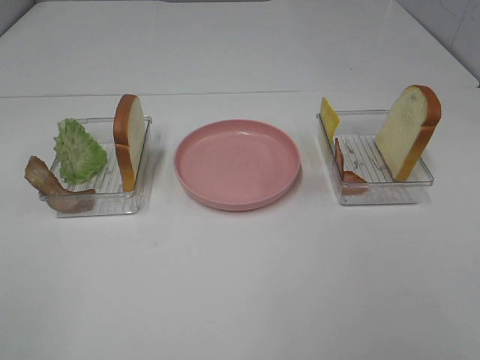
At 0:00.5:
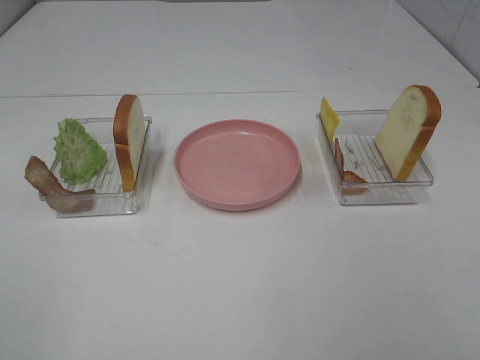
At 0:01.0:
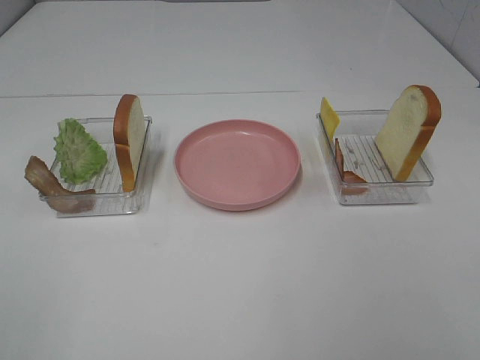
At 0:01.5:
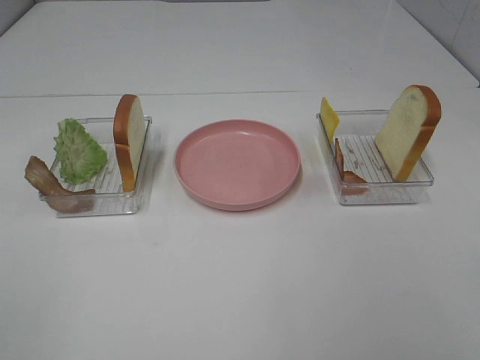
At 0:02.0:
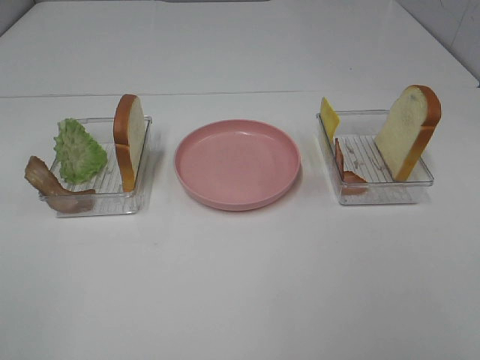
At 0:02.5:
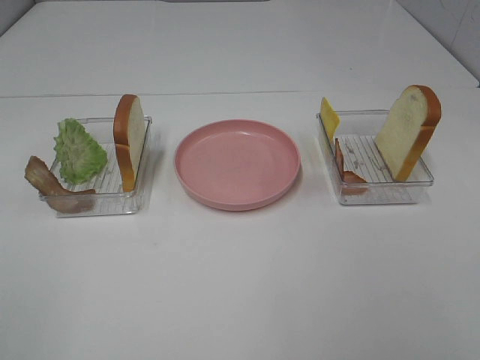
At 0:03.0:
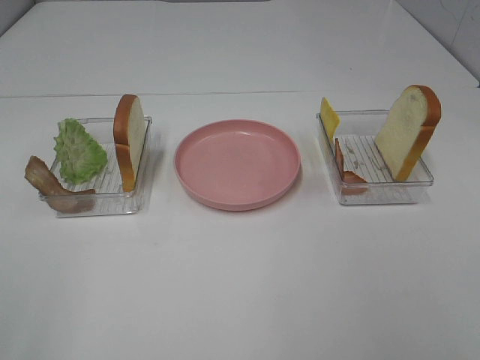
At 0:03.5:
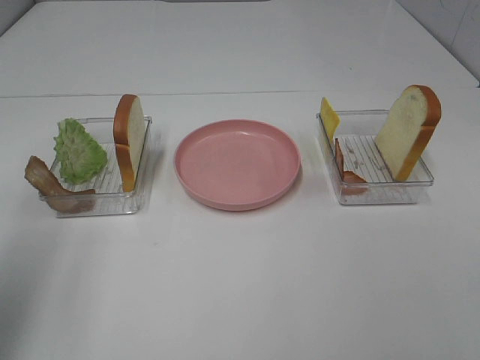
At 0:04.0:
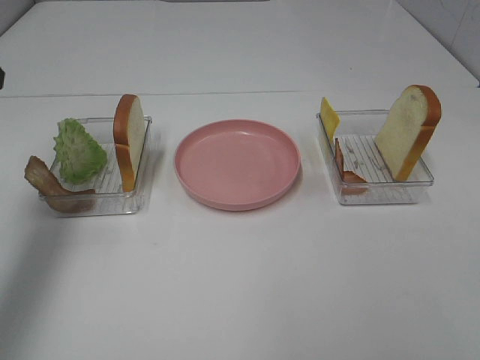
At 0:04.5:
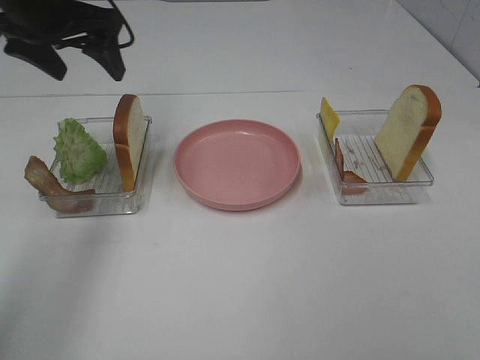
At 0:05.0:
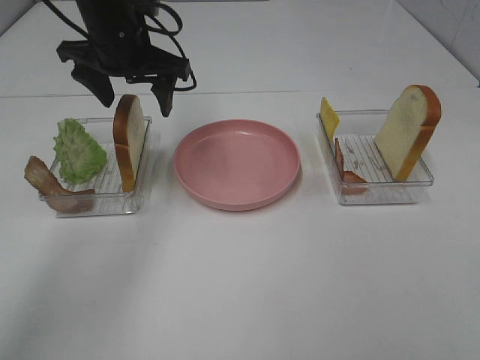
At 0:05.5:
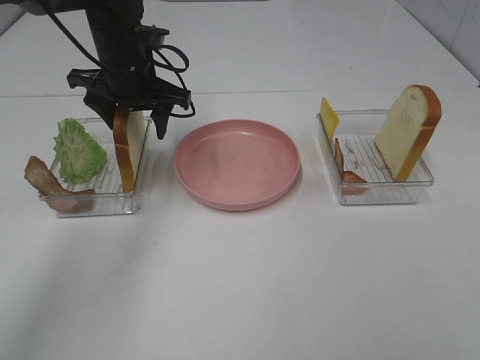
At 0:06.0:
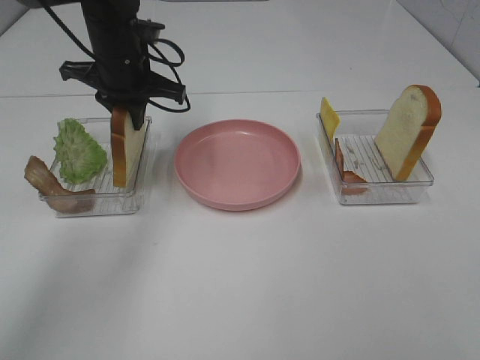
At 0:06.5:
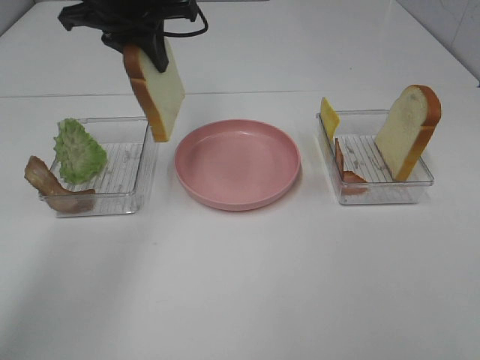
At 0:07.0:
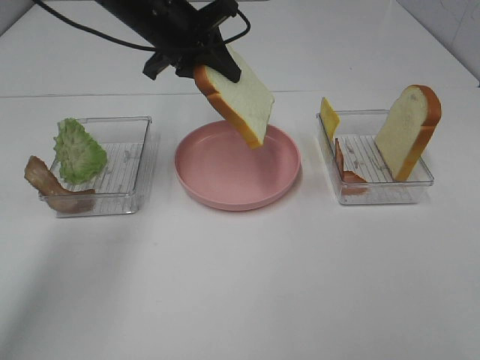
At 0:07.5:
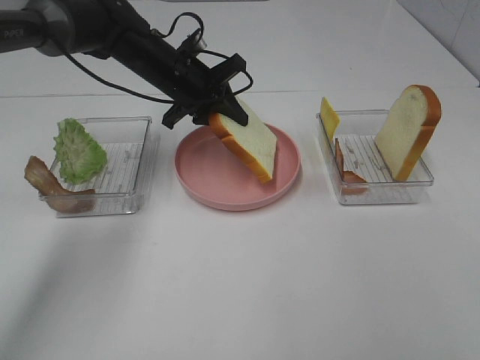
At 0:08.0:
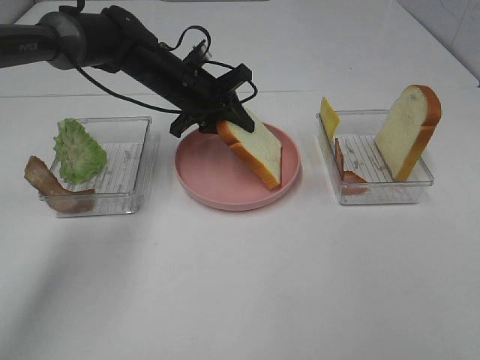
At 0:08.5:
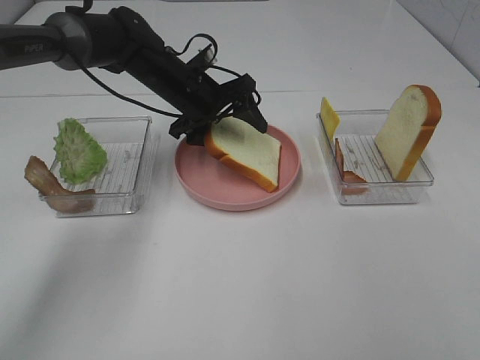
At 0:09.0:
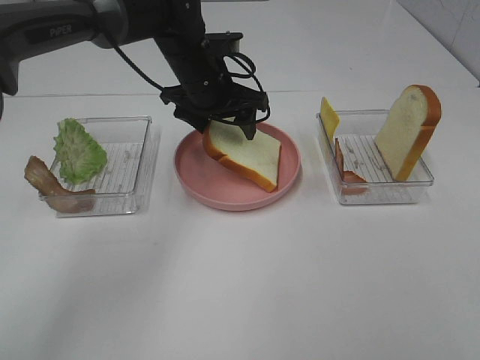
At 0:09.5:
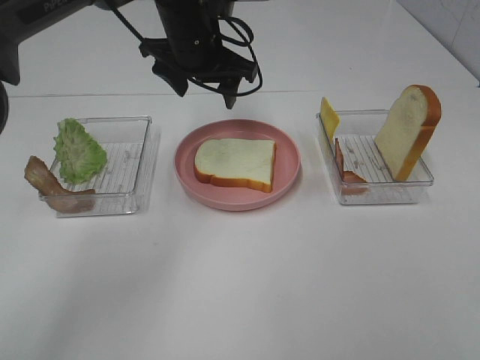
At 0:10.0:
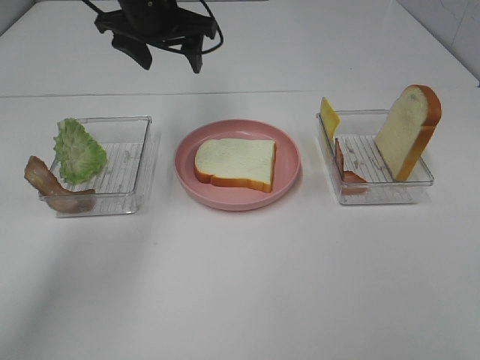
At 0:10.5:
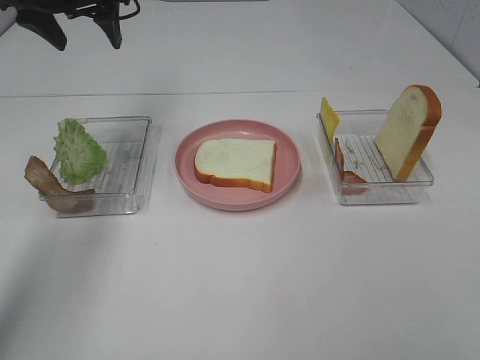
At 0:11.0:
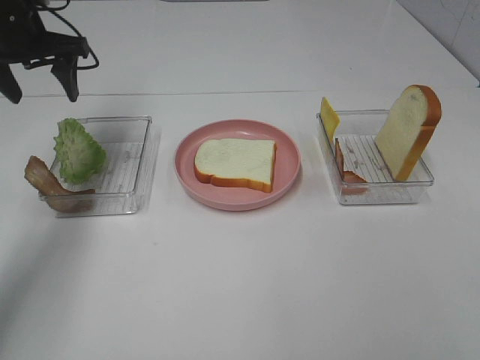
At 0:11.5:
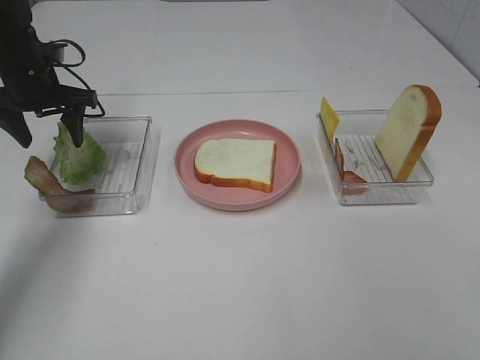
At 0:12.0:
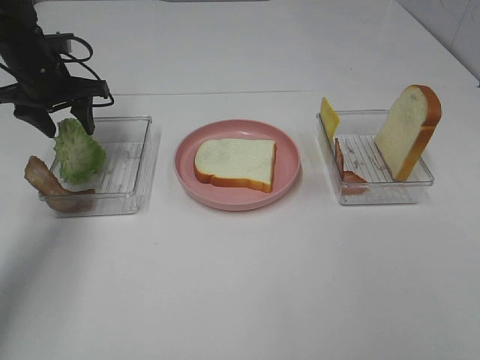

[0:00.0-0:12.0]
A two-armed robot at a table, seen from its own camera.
Task of the whole recording: Make sandwiches.
Step, 0:00.0 to 0:05.5: Left hand:grab the bread slice.
Step, 0:06.0 to 0:09.0: Left hand:place the bread slice on the plate.
0:00.0 to 0:02.0: Neither gripper changes place.
0:02.0 to 0:04.0: The left gripper goes approximately 30 cm forward.
0:04.0 to 0:06.0: The left gripper travels to the right, forward and downward by approximately 25 cm, and closes its fingers.
0:06.0 to 0:08.0: The left gripper goes some 10 cm downward and to the right.
0:08.0 to 0:10.0: The left gripper heads upward, covering some 15 cm, and opens up.
0:10.0 to 0:12.0: The left gripper goes roughly 20 cm to the left and downward.

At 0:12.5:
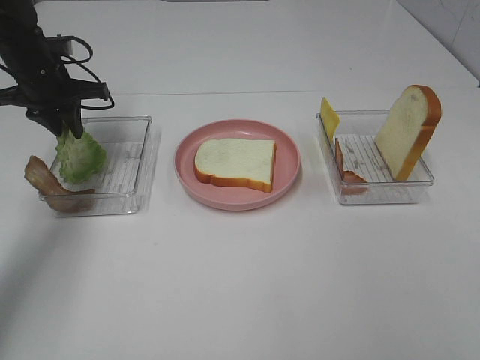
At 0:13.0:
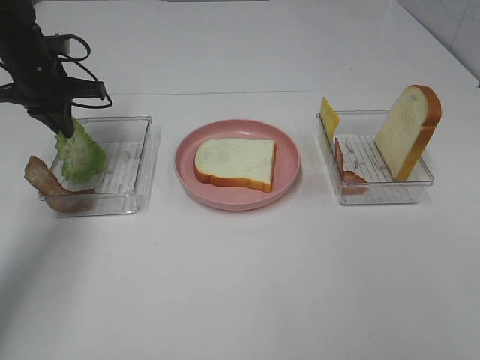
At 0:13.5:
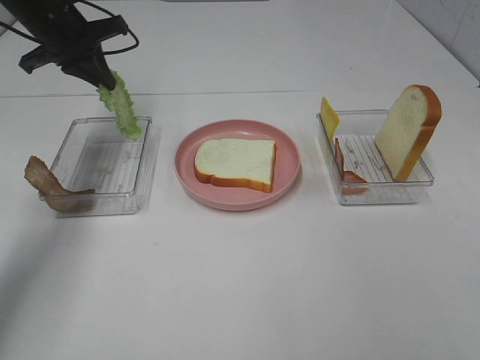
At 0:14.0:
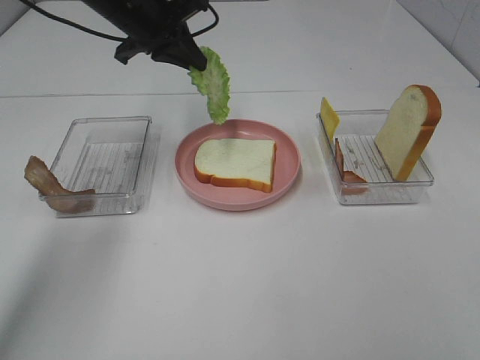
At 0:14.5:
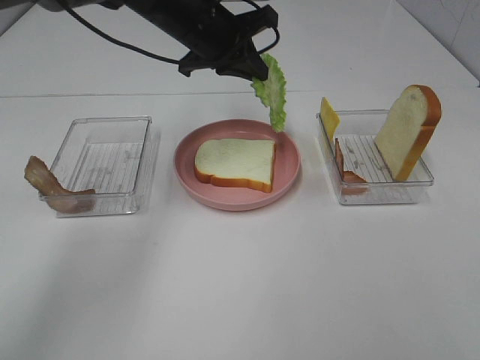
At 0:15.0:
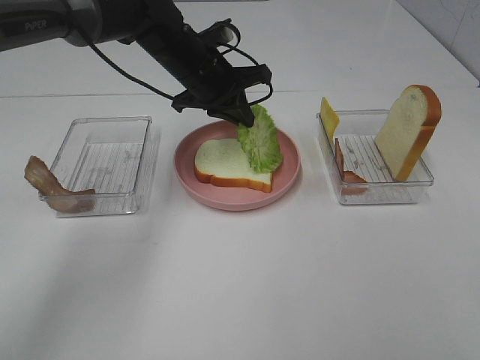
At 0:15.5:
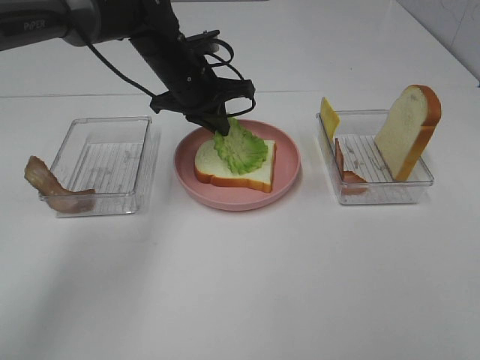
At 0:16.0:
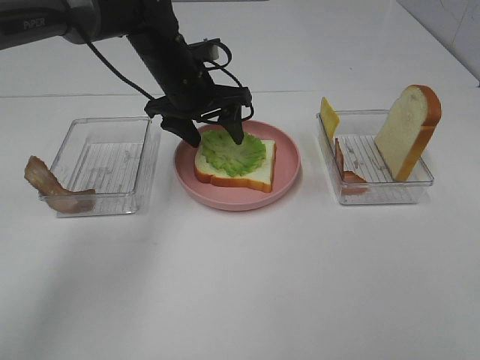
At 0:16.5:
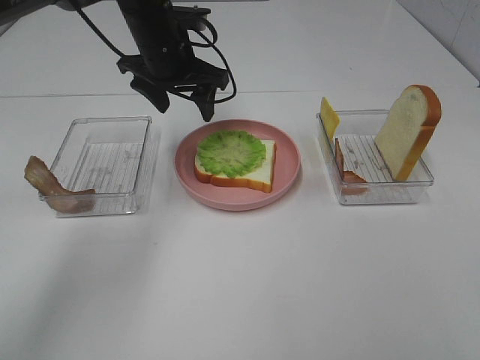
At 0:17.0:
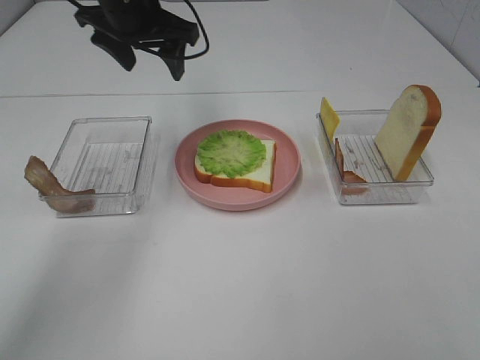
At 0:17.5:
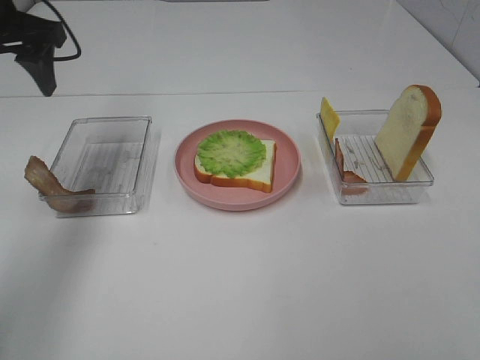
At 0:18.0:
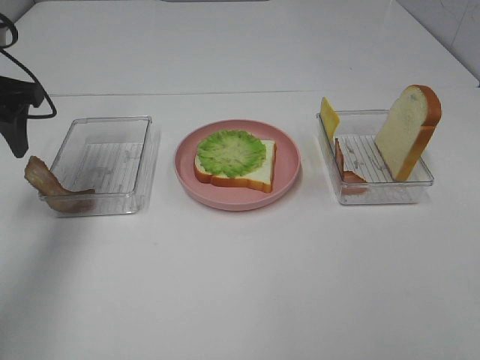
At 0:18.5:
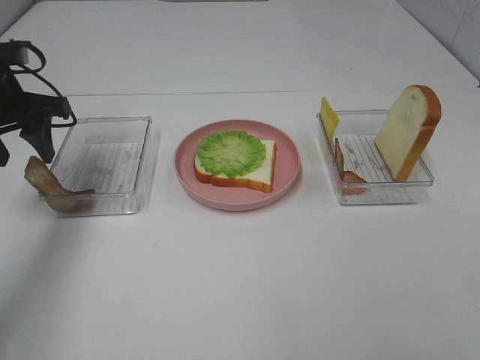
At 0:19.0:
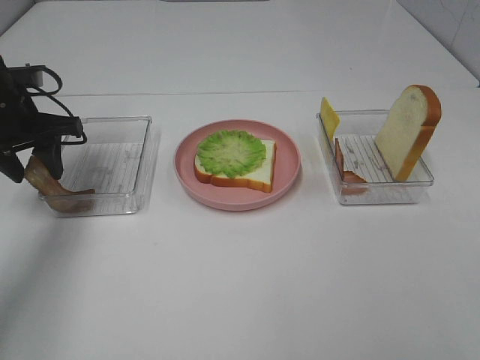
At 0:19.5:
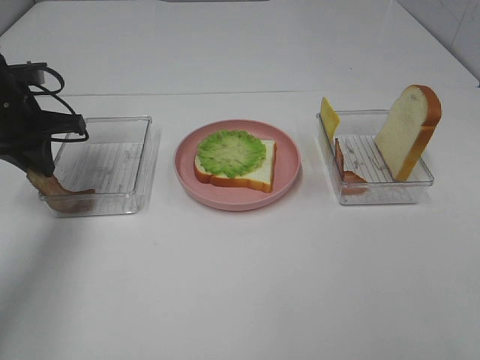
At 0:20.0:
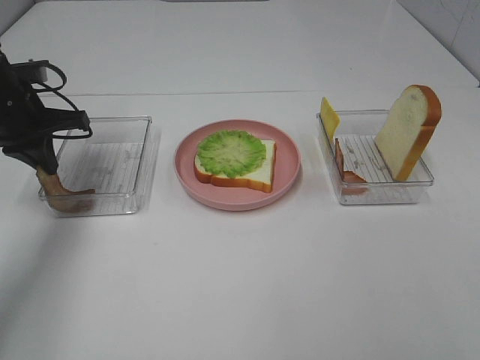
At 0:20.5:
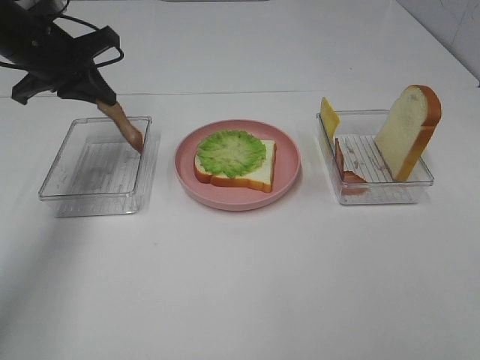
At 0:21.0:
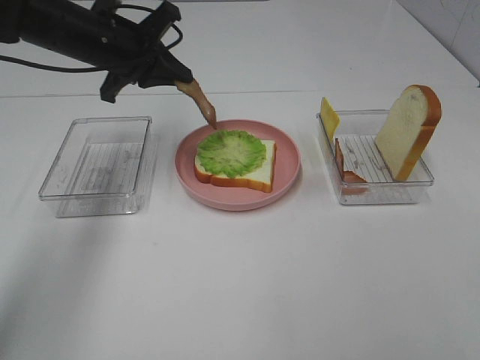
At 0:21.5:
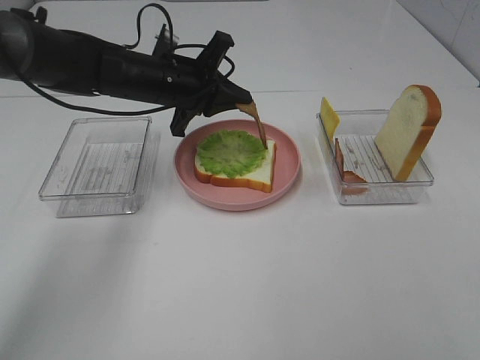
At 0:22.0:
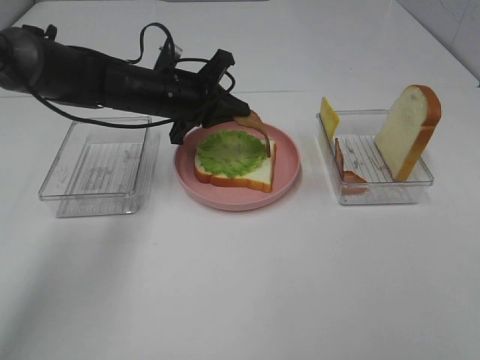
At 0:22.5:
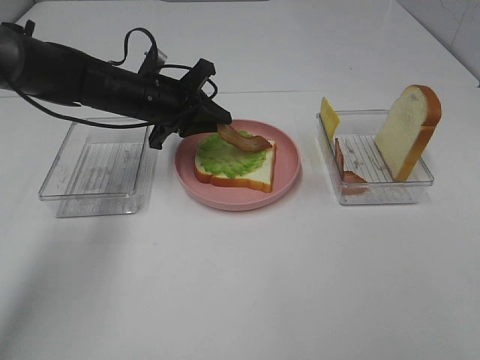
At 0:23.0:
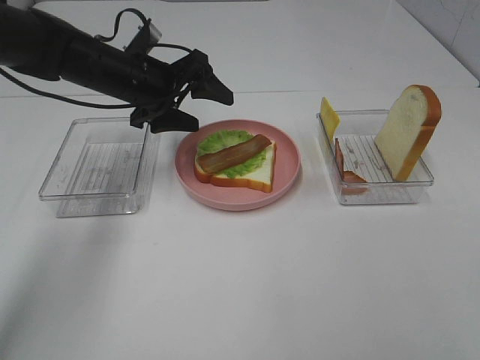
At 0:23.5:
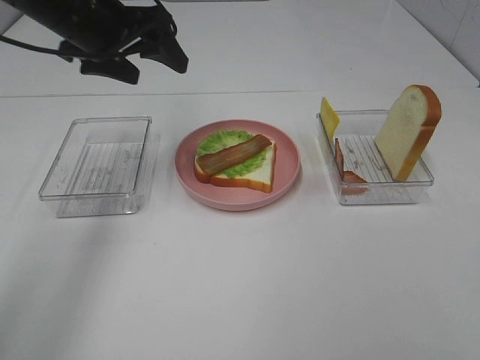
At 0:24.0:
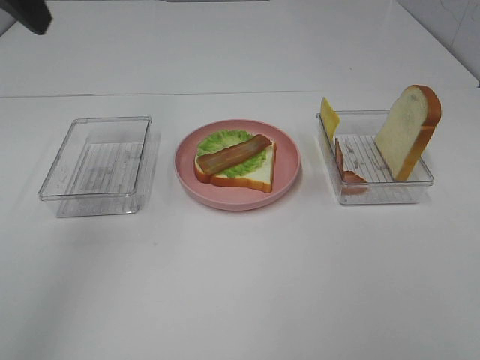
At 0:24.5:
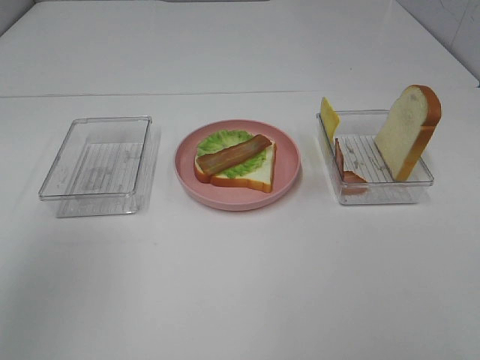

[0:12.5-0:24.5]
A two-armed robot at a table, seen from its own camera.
Task of the whole recording: Make sandwiches.
Step, 0:13.0 to 0:16.0: Left hand:place the lettuce slice on the bread slice.
Step, 0:16.5 to 0:20.0: Left hand:grab the bacon.
Step, 0:20.5 to 0:23.0: Left hand:place bacon on lettuce slice.
0:12.5 to 0:14.5: The left gripper moves to the right, about 20 cm.
0:14.5 to 0:16.5: The left gripper opens.
0:16.5 to 0:18.5: The left gripper shifts approximately 20 cm to the left and backward.
0:18.5 to 0:20.5: The left gripper changes place by approximately 5 cm, and closes up.
0:20.5 to 0:22.5: The left gripper shifts approximately 15 cm to the right and downward.
0:22.5 to 0:24.5: The left gripper goes roughly 40 cm upward, backward and to the left, and opens up.

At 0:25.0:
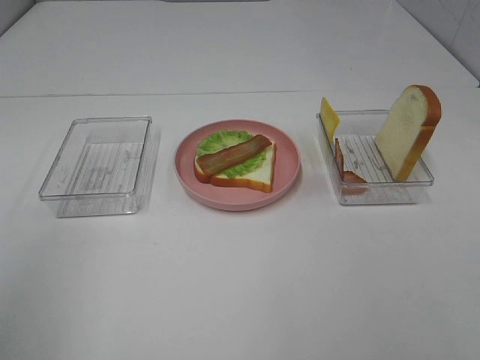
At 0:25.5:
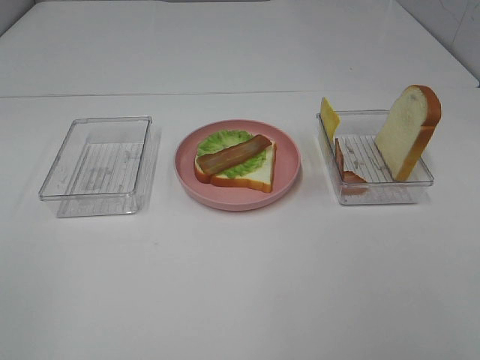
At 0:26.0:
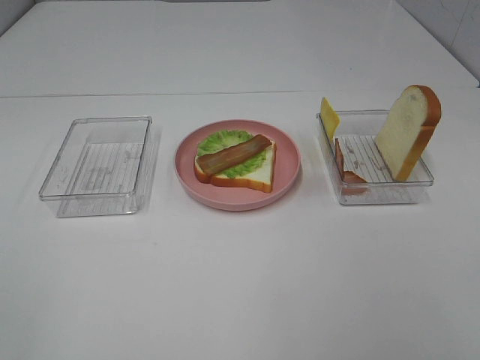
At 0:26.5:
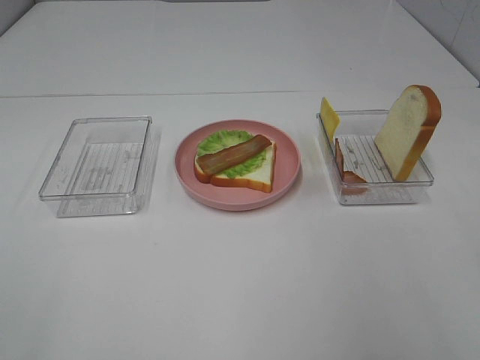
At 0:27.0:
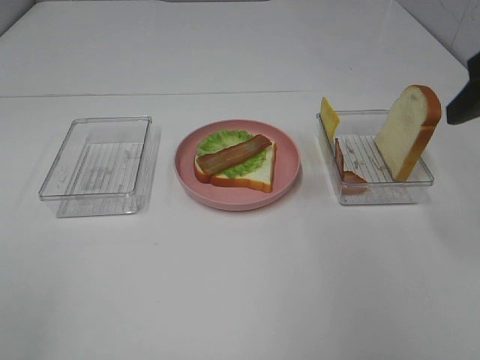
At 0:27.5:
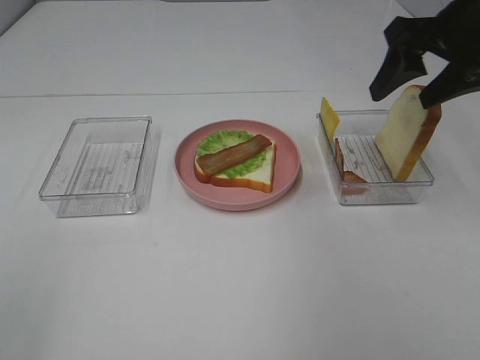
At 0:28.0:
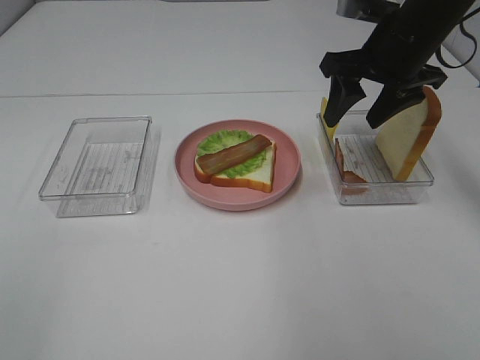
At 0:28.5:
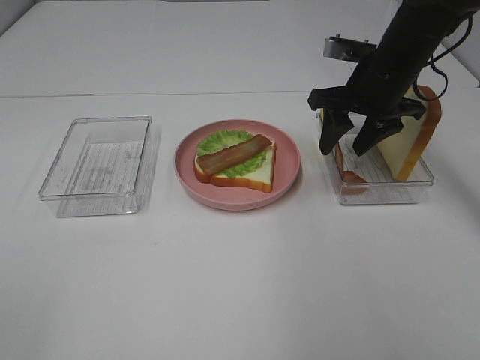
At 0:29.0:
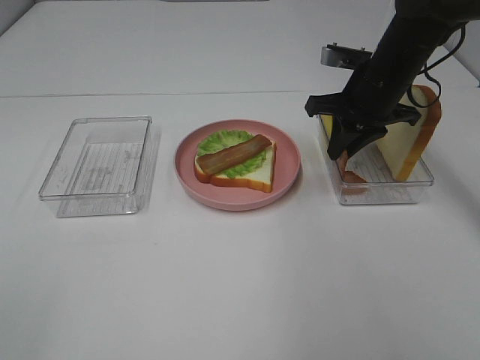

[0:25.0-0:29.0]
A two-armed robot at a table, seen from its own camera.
Task of the whole recording: Make sandwiches.
0:25.0 to 0:27.0: The right gripper moves forward, approximately 25 cm.
0:27.0 to 0:29.0: The right gripper heads forward, downward and to the left, covering about 20 cm, and closes.
